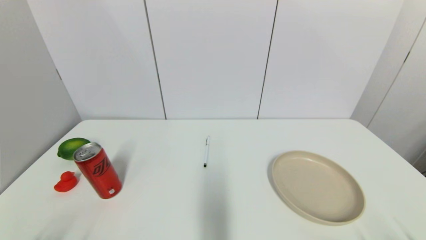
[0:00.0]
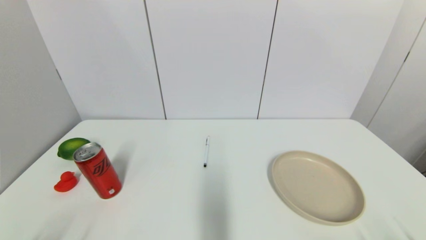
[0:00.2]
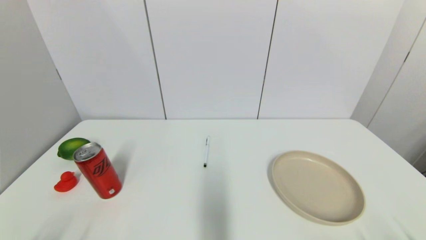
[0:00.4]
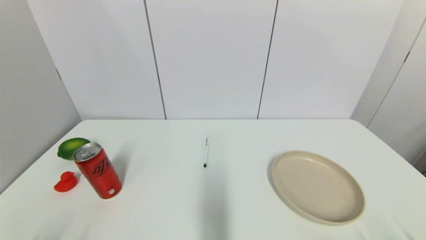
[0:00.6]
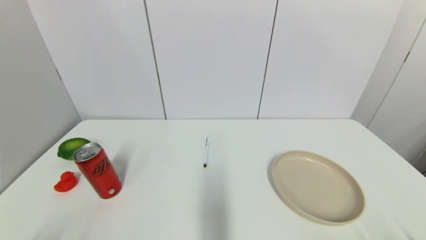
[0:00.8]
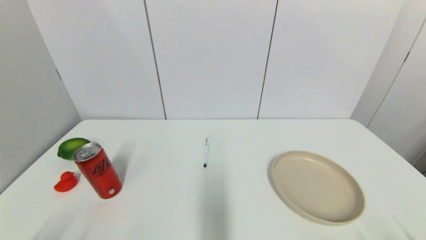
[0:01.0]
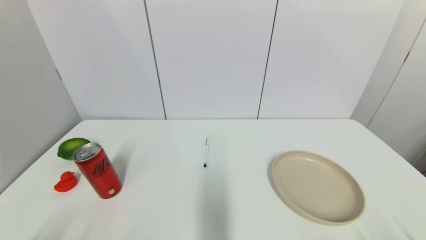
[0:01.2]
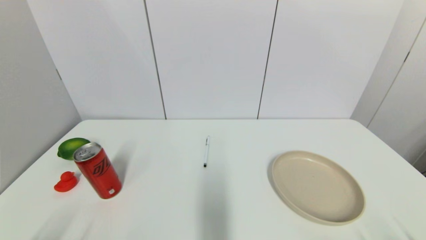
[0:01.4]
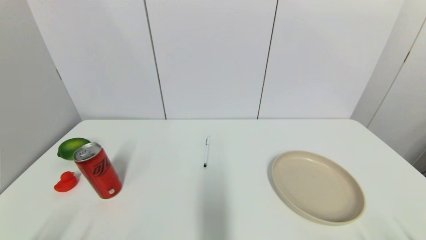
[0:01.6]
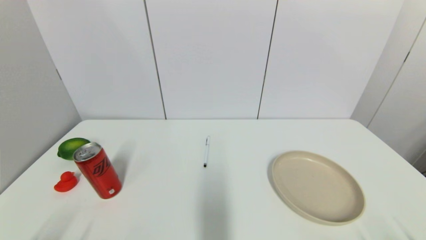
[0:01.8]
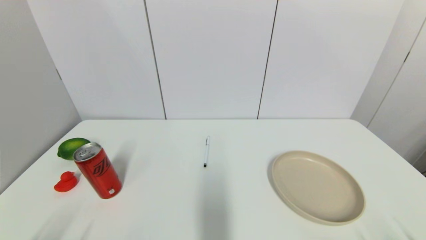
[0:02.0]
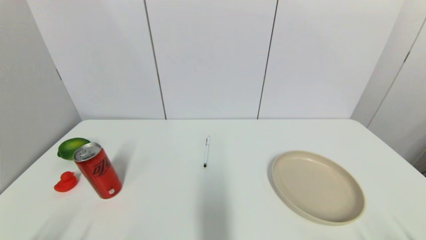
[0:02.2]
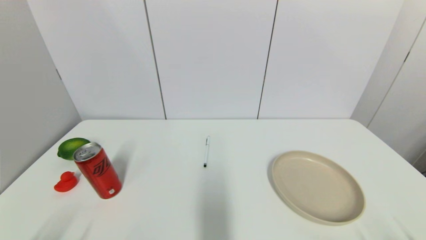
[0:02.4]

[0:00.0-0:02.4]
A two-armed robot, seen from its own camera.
0.0 to 2.4 s: The two grippers keep their place.

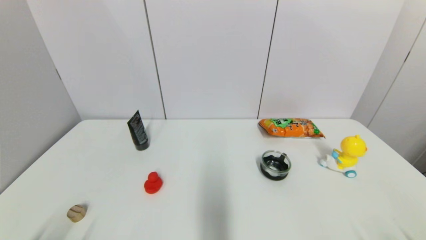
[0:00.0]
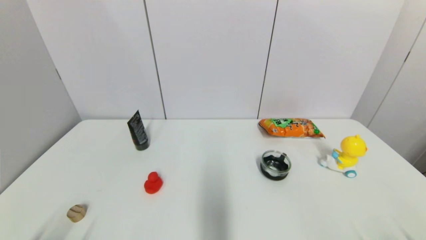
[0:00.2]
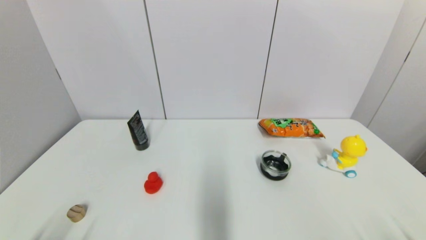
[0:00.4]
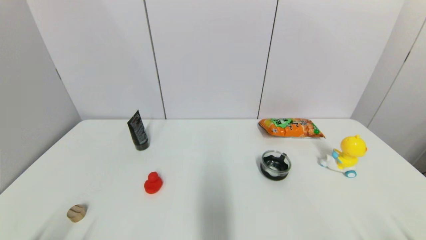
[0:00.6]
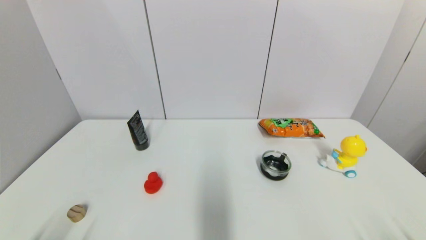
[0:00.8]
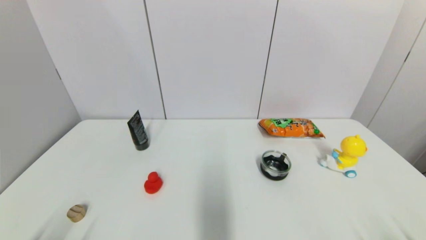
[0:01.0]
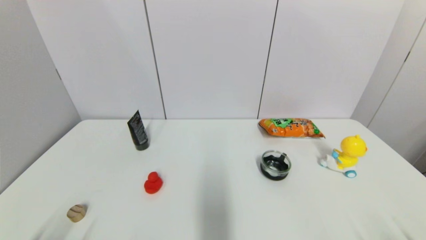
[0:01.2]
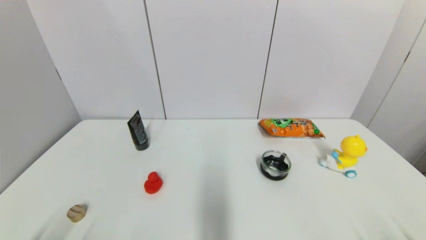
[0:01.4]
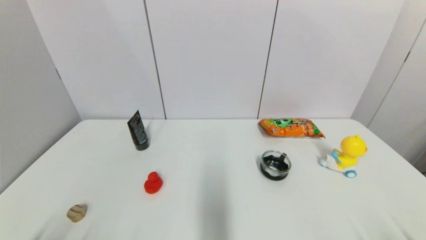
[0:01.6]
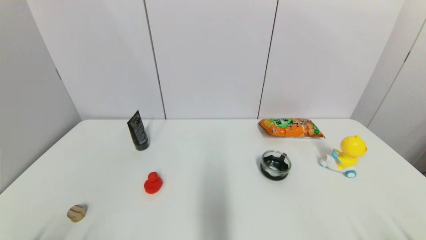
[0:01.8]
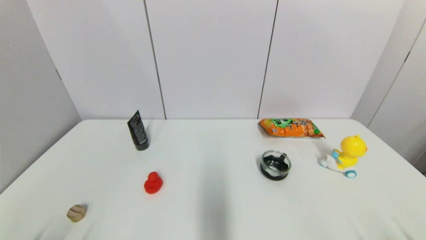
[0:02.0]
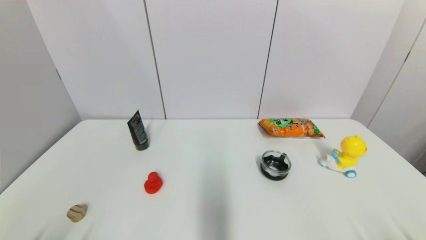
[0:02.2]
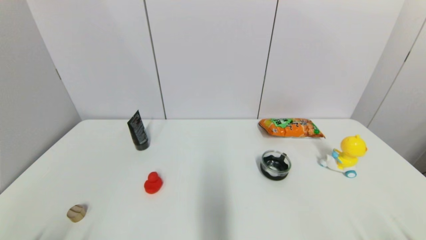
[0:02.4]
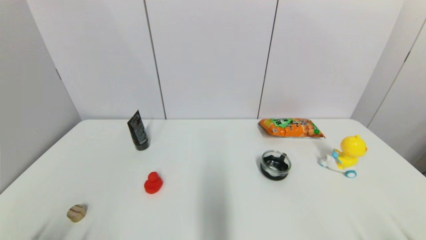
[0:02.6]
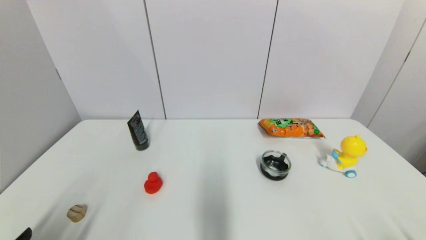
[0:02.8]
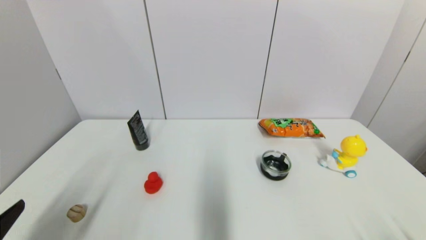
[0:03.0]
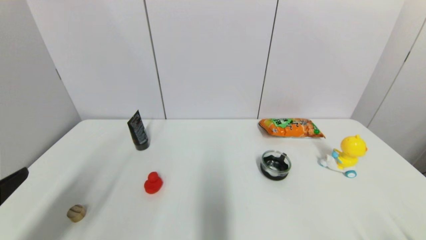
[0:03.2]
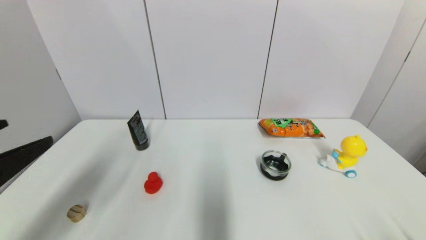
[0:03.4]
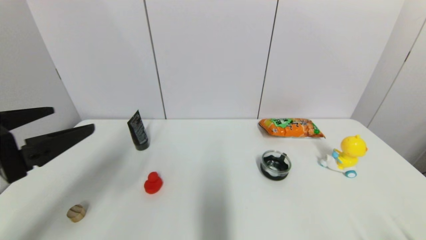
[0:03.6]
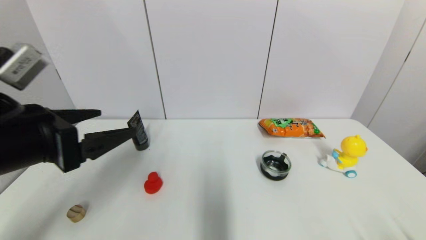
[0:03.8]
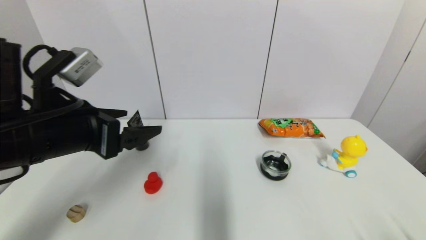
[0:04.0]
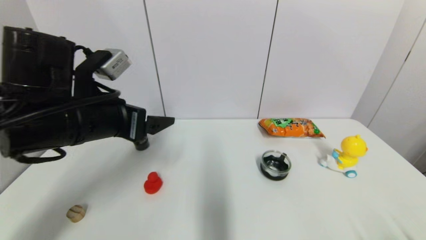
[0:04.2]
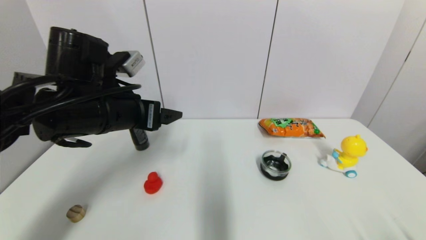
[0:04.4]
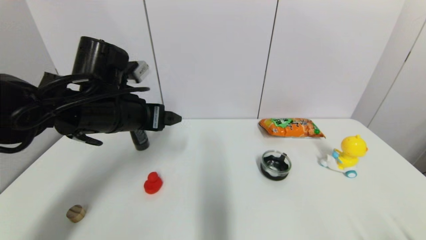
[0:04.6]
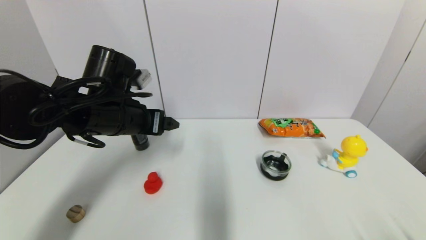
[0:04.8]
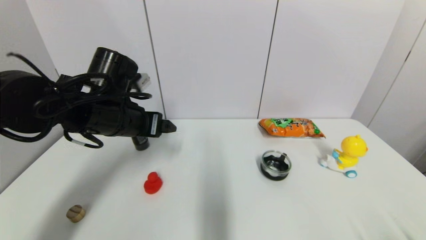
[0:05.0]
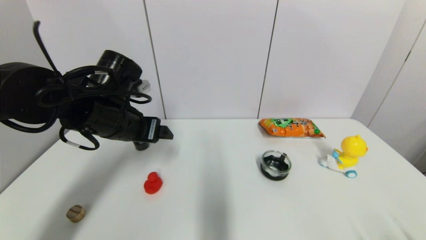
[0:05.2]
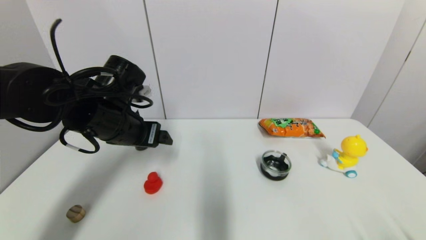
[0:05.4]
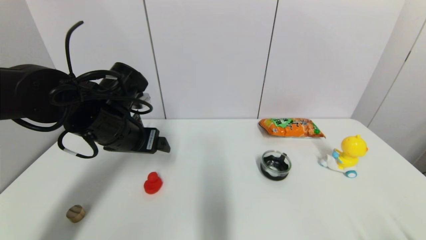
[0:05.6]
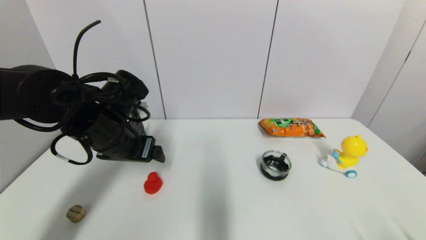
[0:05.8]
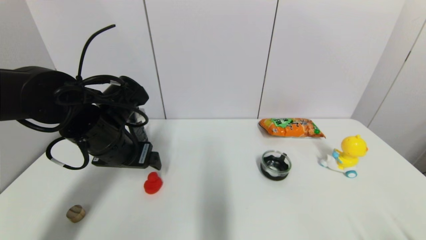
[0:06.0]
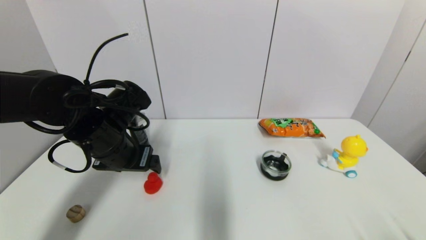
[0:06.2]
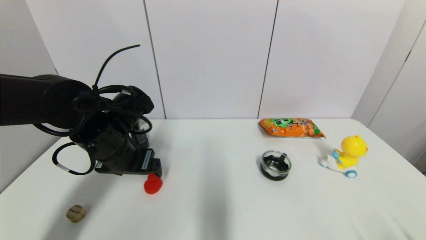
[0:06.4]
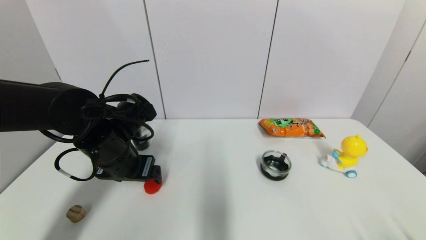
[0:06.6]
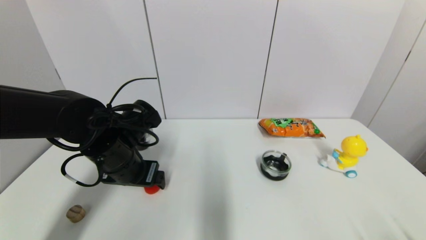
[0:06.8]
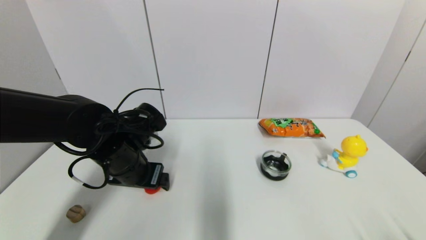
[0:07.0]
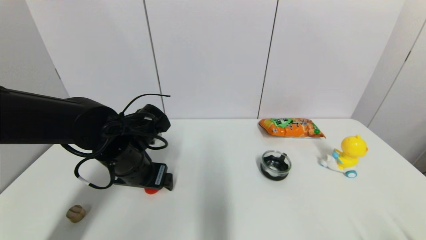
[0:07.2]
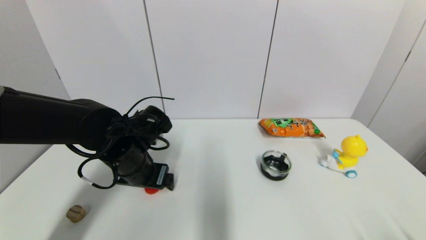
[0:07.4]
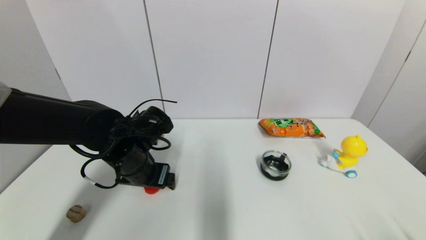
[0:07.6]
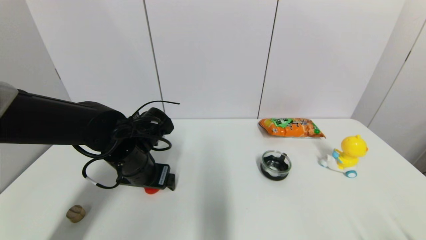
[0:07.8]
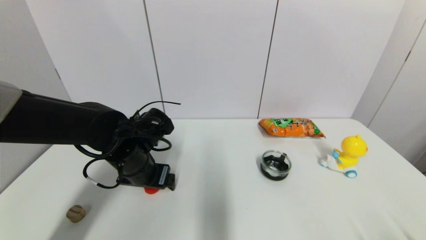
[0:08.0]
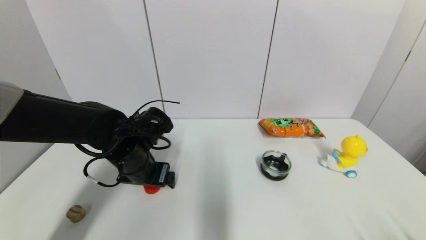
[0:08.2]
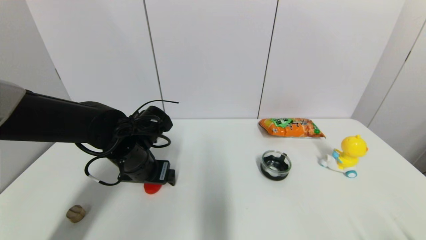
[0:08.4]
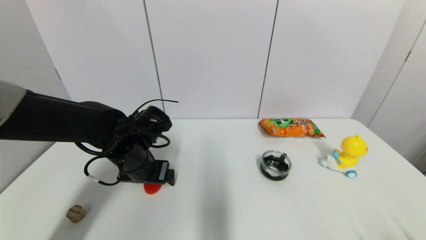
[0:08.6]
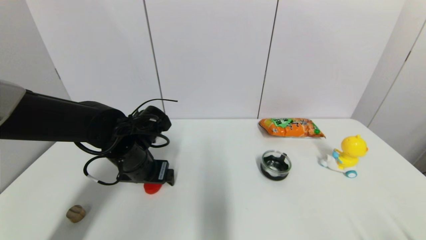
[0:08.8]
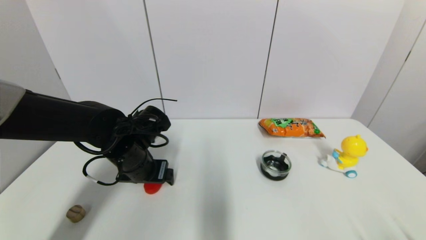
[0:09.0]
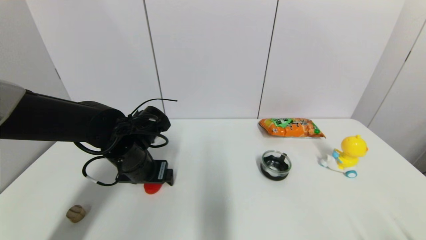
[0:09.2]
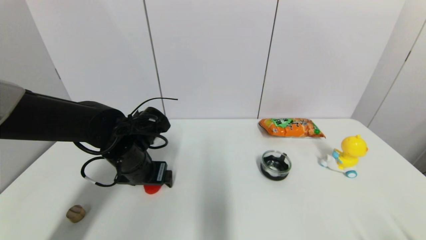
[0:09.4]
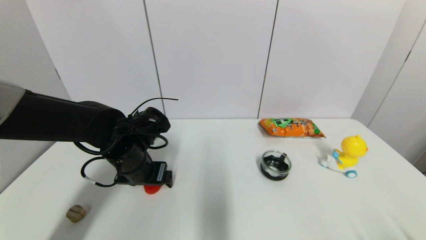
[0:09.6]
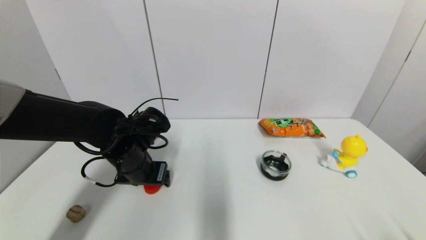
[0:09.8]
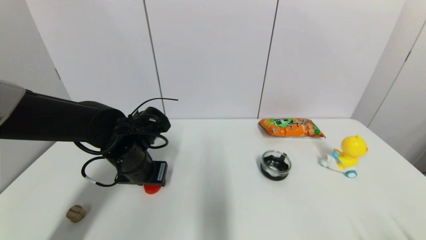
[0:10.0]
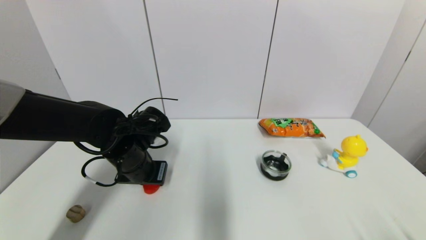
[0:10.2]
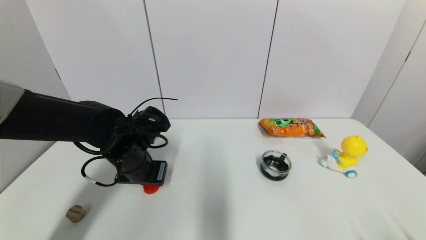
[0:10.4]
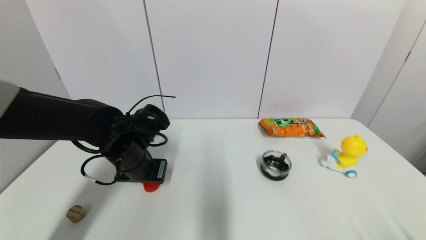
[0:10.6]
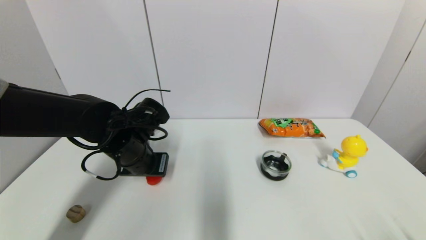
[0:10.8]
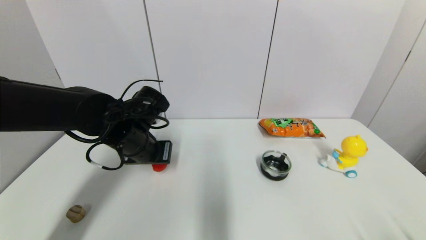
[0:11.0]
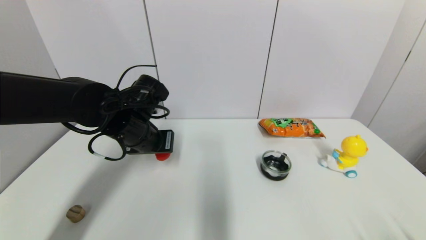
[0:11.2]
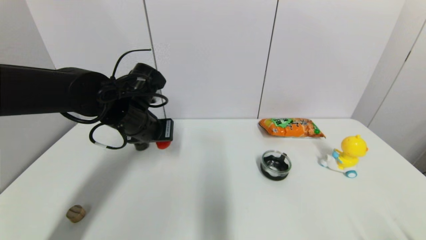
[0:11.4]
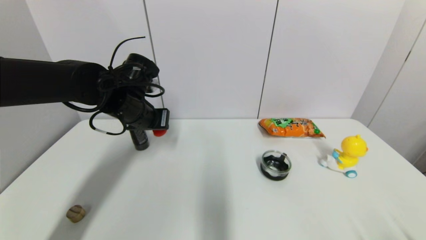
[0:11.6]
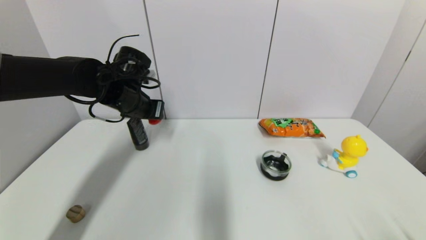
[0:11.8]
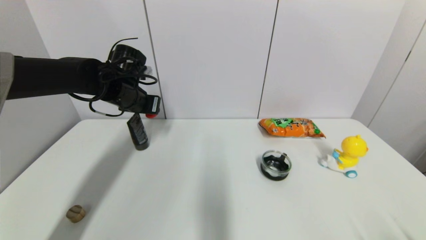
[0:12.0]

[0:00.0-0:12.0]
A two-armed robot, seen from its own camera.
Step, 2.8 to 11.0 s: Grasp the red duck with left gripper.
0.0 to 1.6 s: Both grippers stay about where they are.
1.6 to 3.0 s: The left gripper shifts roughly 10 cm upward.
3.0 to 4.4 s: The left gripper moves forward and to the right, roughly 25 cm.
4.4 to 6.0 s: The left gripper goes roughly 5 cm downward.
6.0 to 7.6 s: The left gripper moves downward, roughly 5 cm.
7.6 to 9.0 s: The grippers make only small movements.
9.0 to 10.4 s: The left gripper closes up.
10.4 to 12.0 s: The left gripper travels forward and upward by approximately 15 cm.

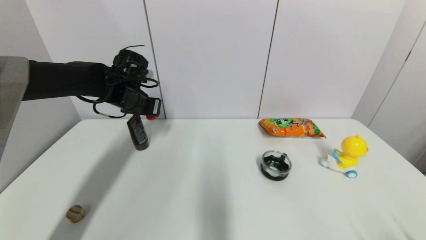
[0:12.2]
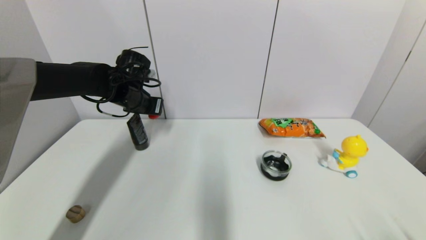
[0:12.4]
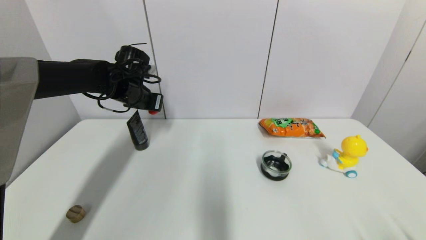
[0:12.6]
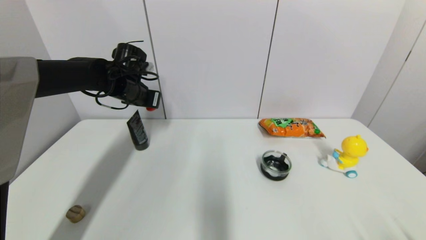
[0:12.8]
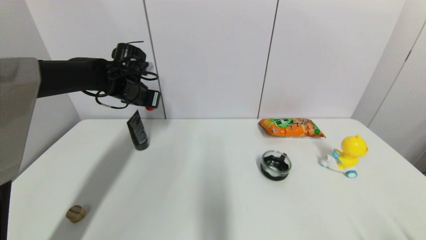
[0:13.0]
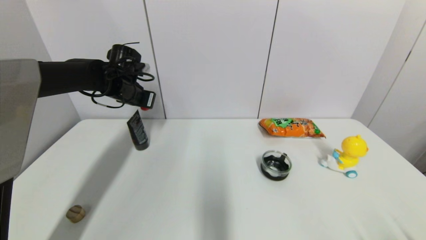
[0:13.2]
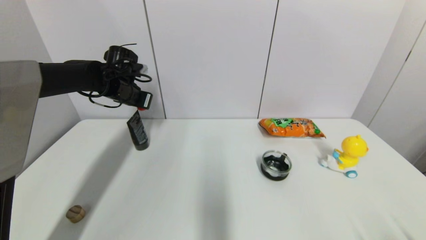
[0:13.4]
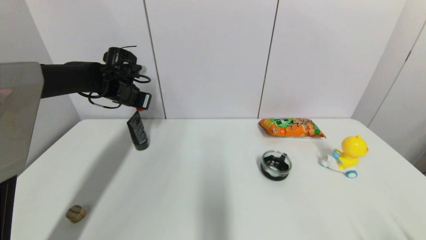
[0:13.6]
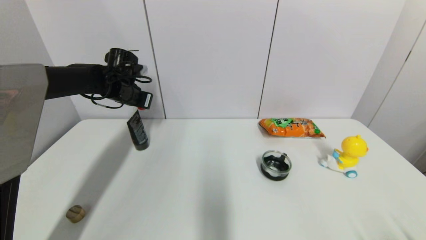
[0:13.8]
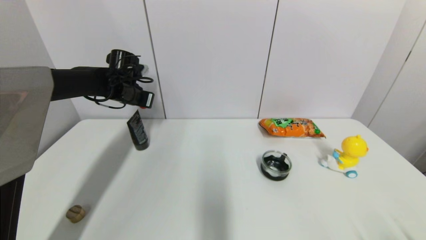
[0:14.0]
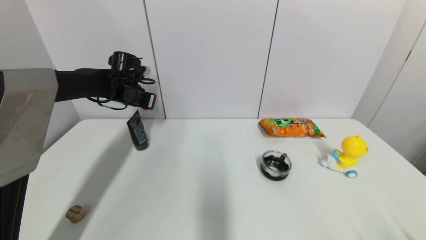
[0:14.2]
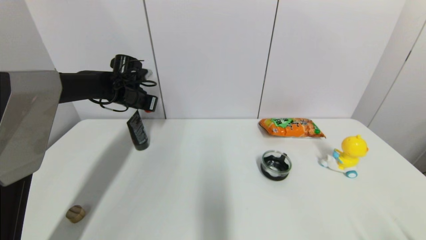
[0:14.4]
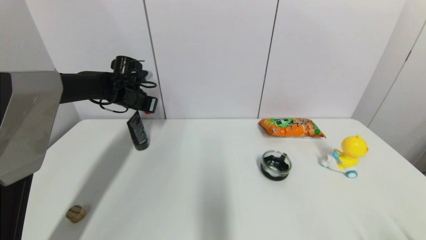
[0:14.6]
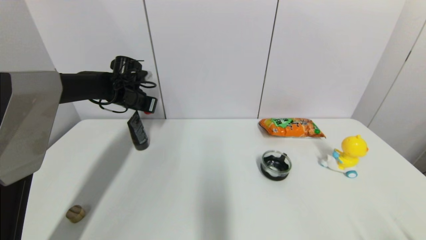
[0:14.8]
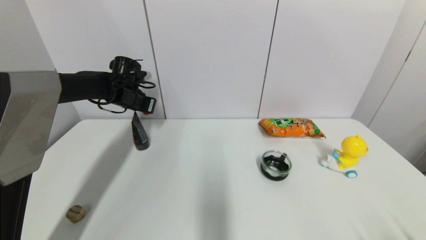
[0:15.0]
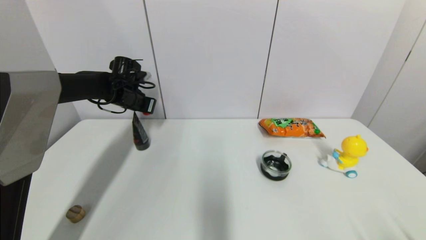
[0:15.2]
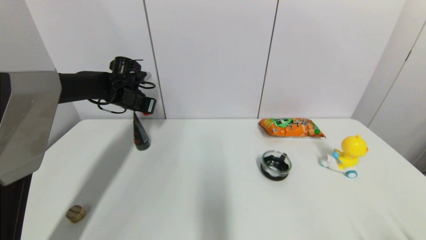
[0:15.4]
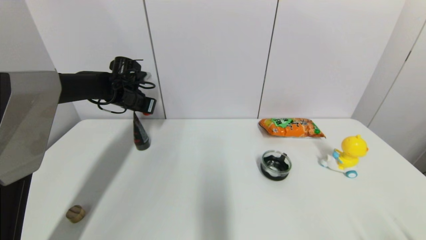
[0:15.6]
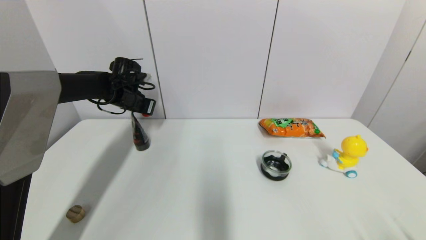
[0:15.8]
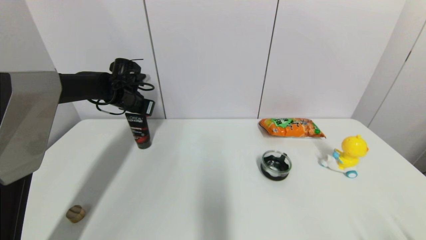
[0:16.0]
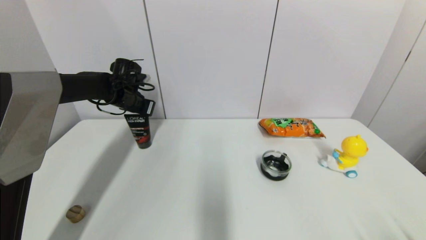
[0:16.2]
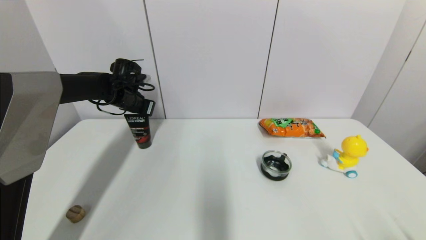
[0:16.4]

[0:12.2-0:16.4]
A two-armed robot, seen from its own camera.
12.2 to 13.6 s: The left gripper shifts by approximately 5 cm.
13.6 to 15.0 s: There are only small adjustments of the grippers.
15.0 to 16.4 s: Neither gripper changes place.
